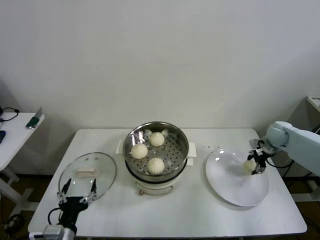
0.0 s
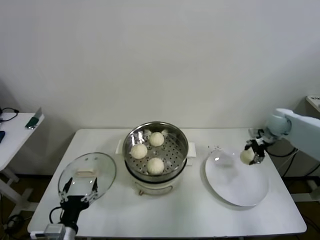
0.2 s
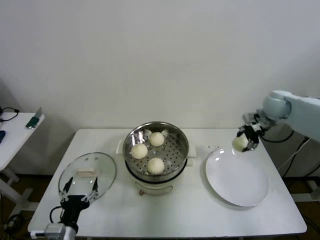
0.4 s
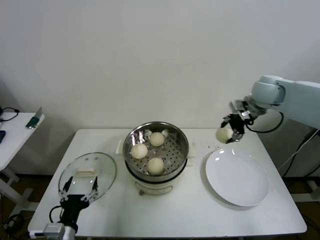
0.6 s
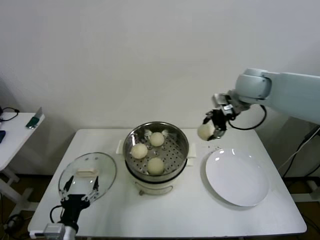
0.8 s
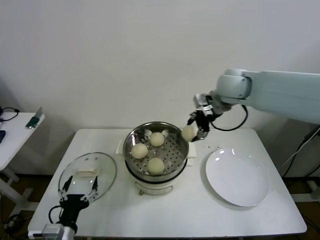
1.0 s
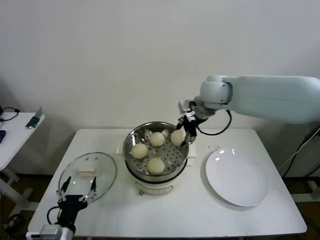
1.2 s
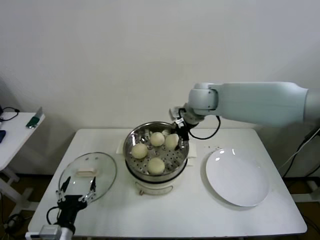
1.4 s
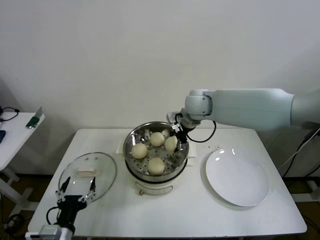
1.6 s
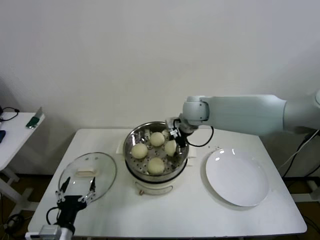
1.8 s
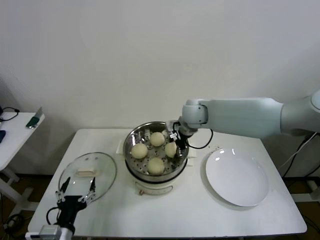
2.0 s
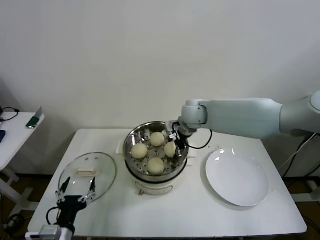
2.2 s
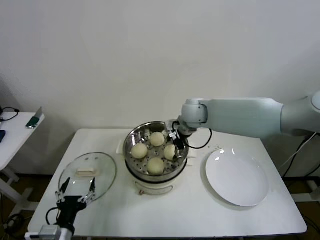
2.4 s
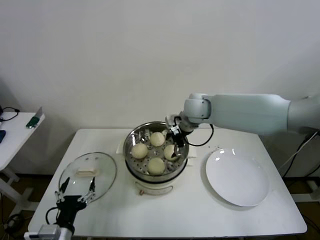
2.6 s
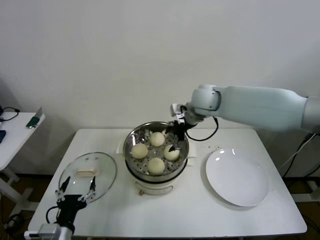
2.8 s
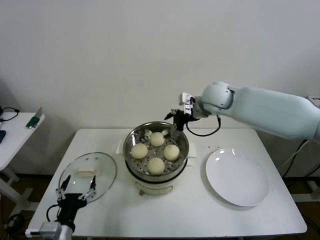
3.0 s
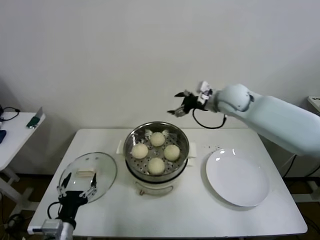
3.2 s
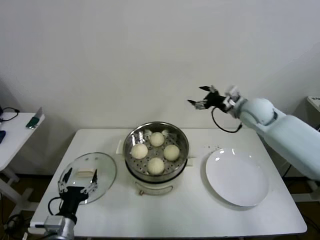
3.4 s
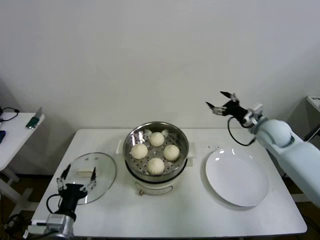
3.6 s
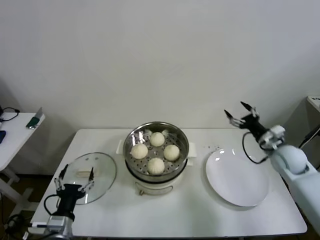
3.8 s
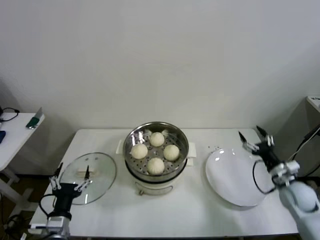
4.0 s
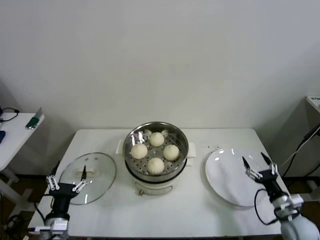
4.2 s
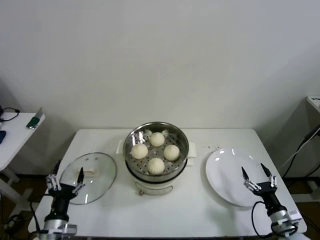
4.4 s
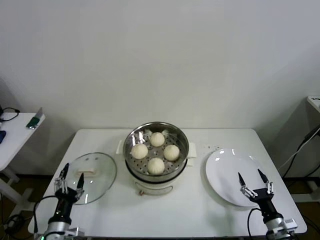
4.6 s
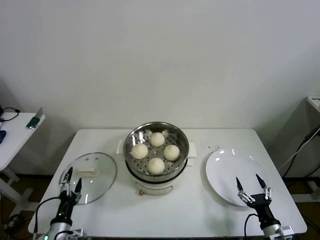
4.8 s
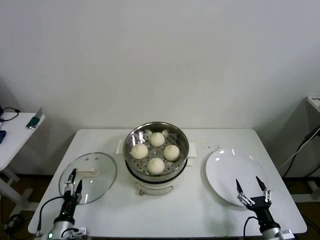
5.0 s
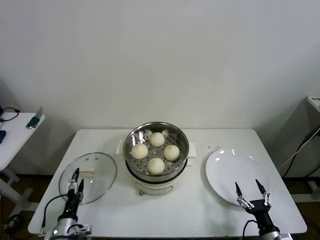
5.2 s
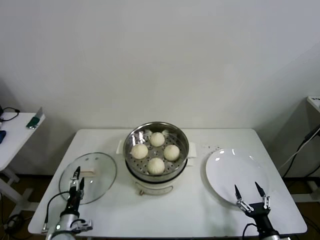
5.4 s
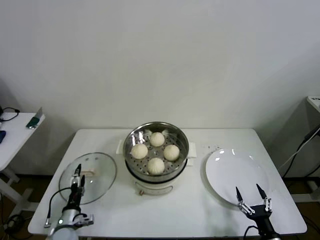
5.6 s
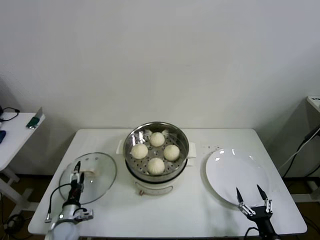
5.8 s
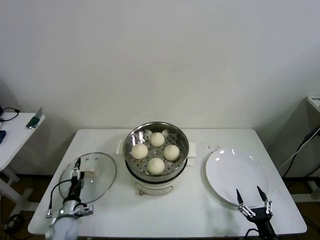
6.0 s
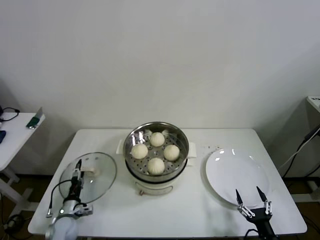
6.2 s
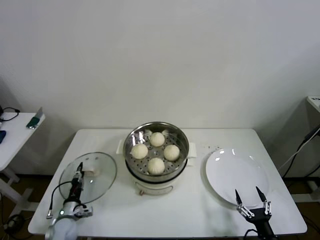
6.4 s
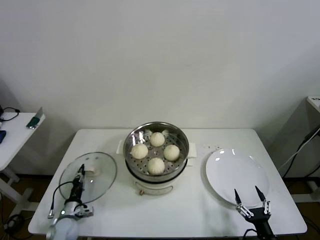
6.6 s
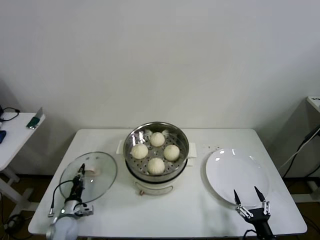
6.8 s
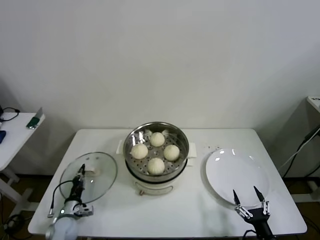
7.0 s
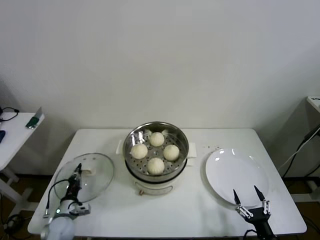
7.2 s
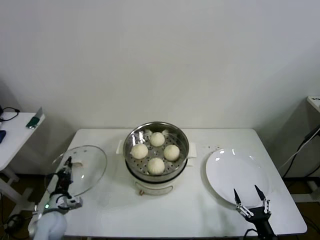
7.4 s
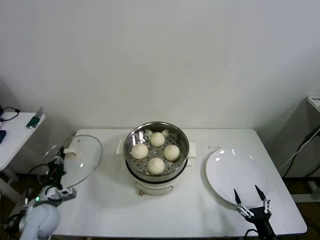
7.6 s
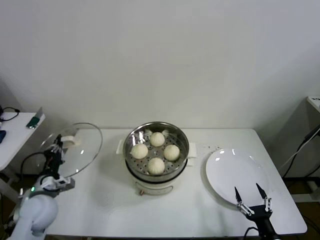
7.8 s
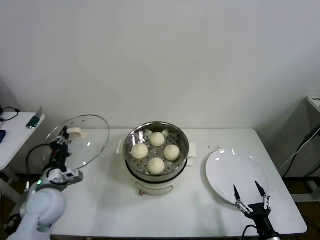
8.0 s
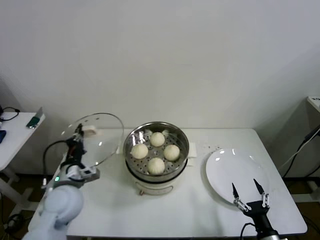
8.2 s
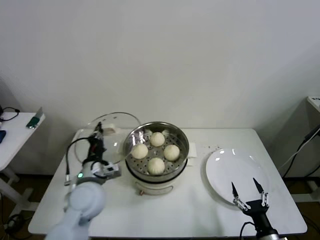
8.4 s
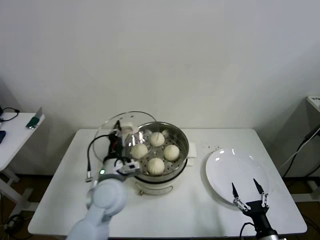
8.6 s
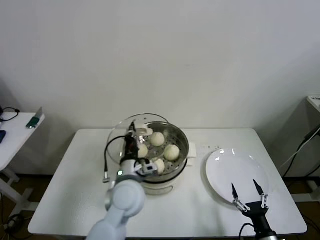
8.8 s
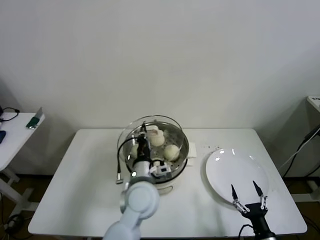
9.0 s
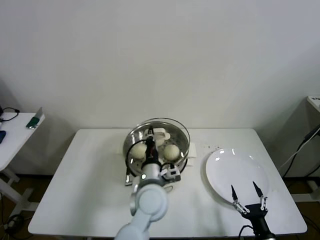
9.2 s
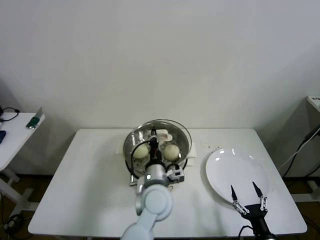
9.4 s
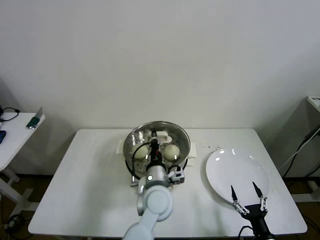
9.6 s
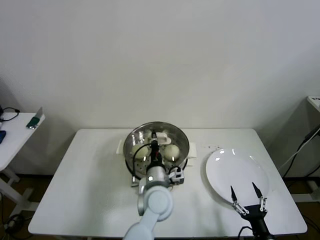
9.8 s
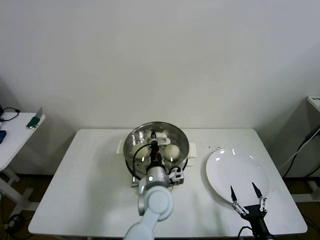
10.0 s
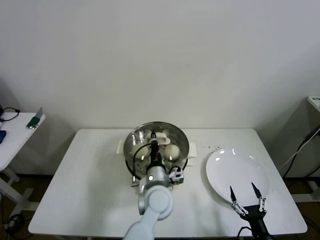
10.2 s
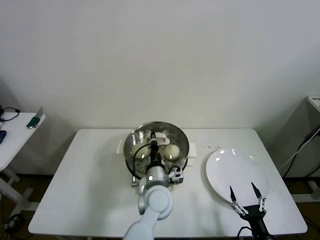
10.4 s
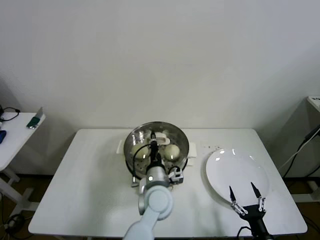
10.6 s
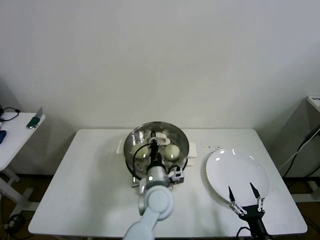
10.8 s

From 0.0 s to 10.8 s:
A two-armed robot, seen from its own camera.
Step, from 0.0 s to 2.6 s: Place the baozi on the steamer with right gripper.
Step, from 2.8 s to 6.6 s: Grasp the pot lid with left gripper.
From 0.0 s to 1.6 s: The right gripper goes about 35 cm to the left and upward.
From 1.6 s to 3.0 s: The right gripper goes roughly 5 cm to the right, and opens up.
From 3.0 s to 4.6 s: The left gripper shifts about 5 cm downward; the right gripper is displaced downward, backward and to the right by approximately 50 cm.
From 4.6 s to 6.2 s: The left gripper shifts roughly 15 cm downward and forward; the right gripper goes roughly 5 cm backward.
From 6.2 s to 7.8 s: The left gripper shifts approximately 20 cm upward, and closes up.
From 7.8 s to 9.2 s: The left gripper shifts roughly 35 cm to the right.
From 9.2 s to 10.8 s: There are only small adjustments of the grippers.

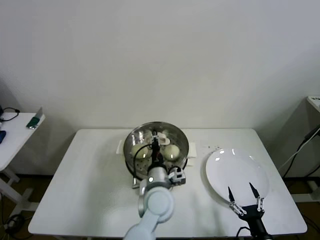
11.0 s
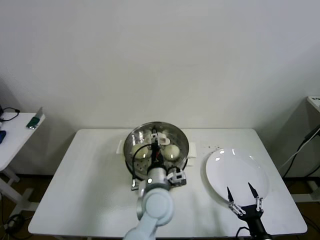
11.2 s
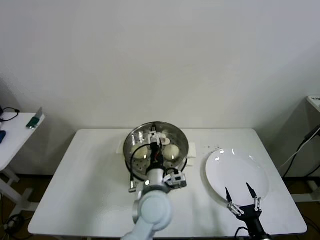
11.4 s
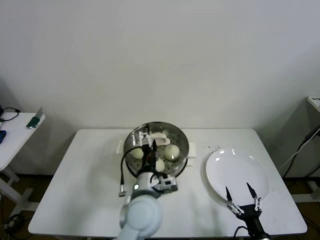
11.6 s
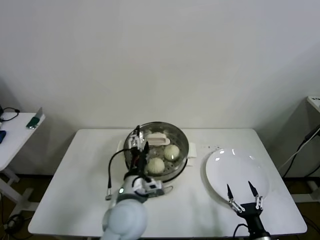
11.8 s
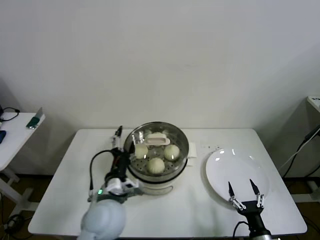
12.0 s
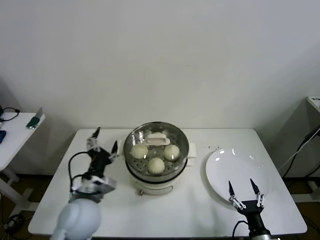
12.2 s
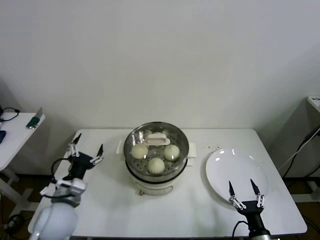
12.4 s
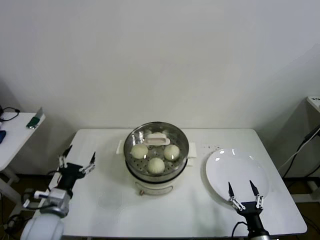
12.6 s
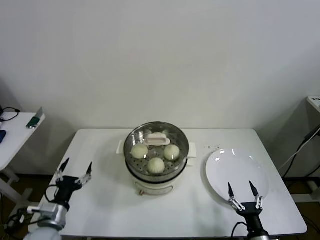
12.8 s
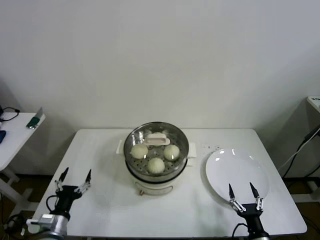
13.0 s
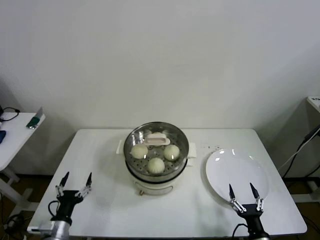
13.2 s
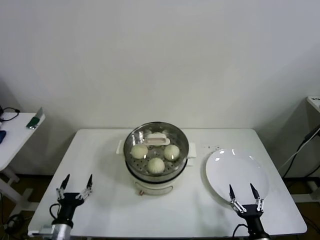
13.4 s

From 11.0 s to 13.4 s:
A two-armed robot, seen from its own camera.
From 11.0 s to 12.2 s: The left gripper moves to the left, about 20 cm, and opens.
From 12.2 s to 13.4 s: The left gripper travels downward, to the left and backward by approximately 25 cm.
